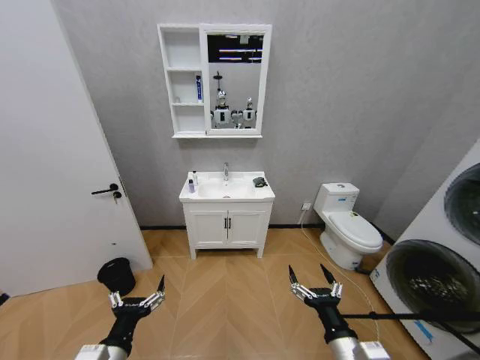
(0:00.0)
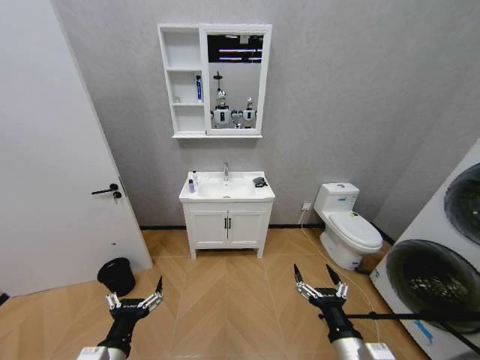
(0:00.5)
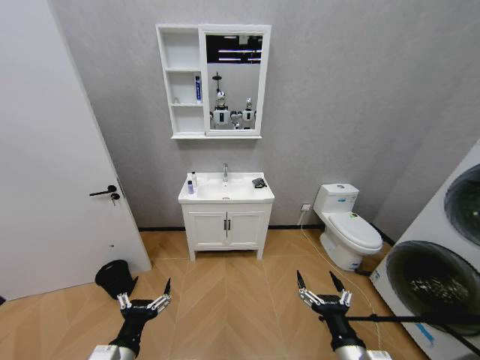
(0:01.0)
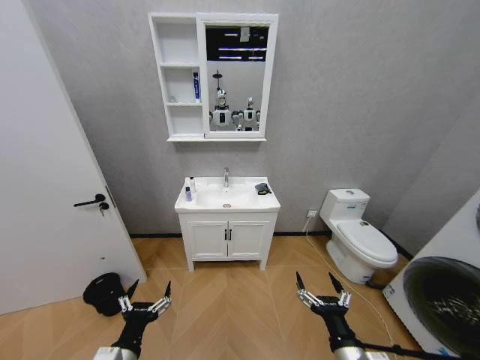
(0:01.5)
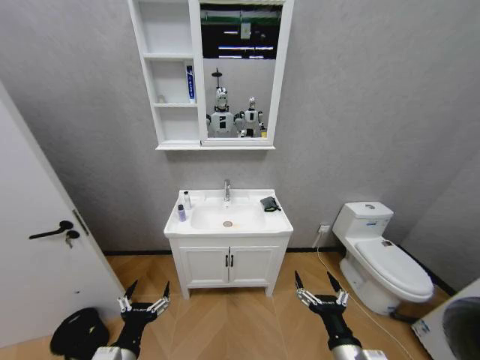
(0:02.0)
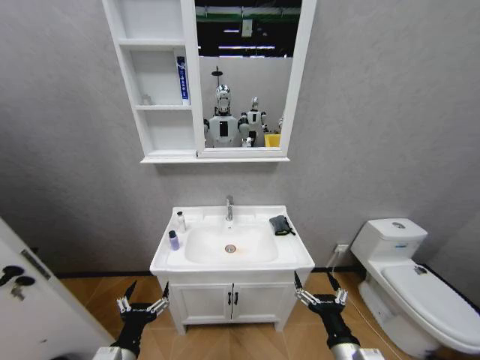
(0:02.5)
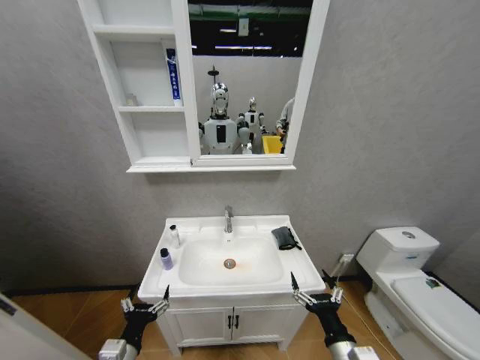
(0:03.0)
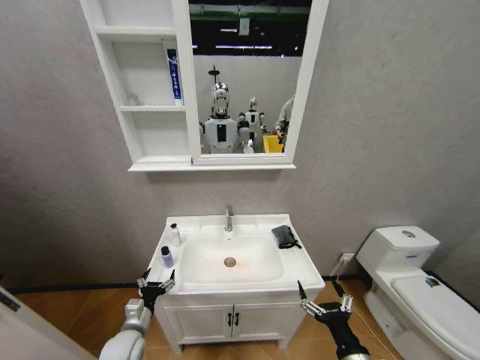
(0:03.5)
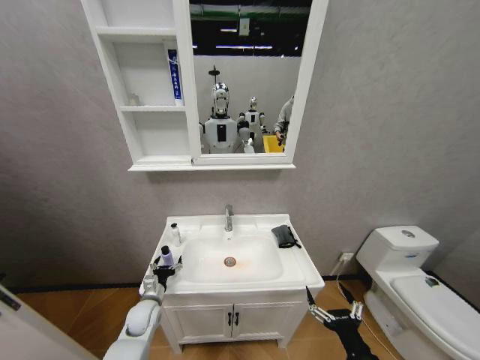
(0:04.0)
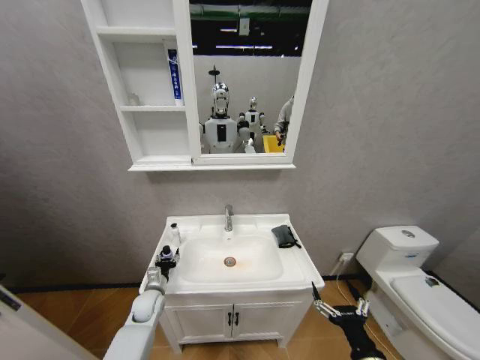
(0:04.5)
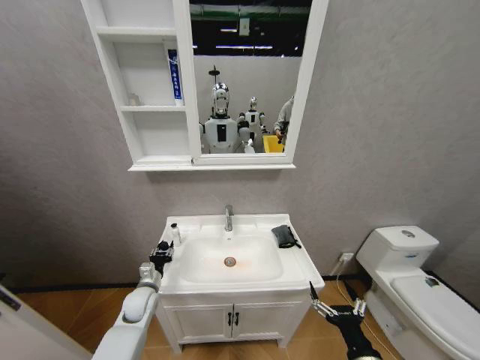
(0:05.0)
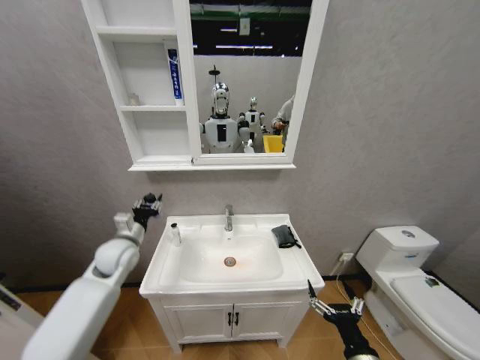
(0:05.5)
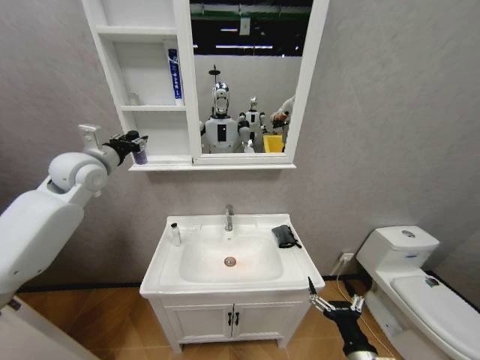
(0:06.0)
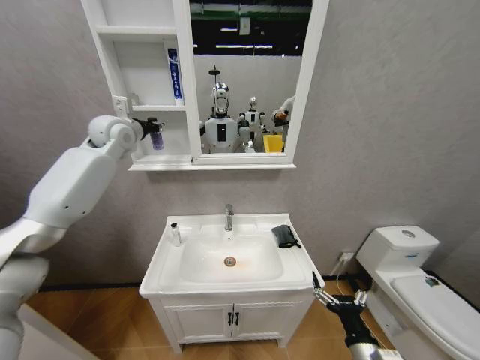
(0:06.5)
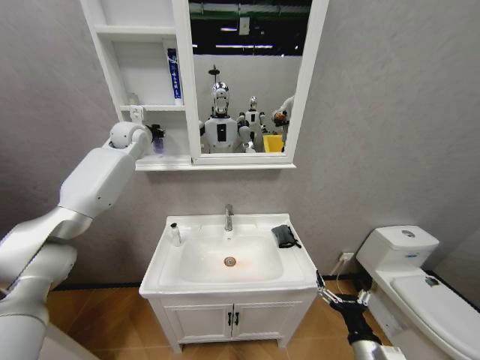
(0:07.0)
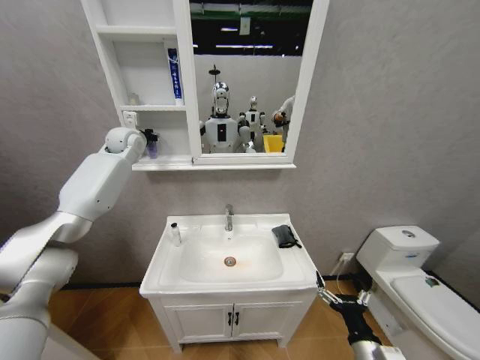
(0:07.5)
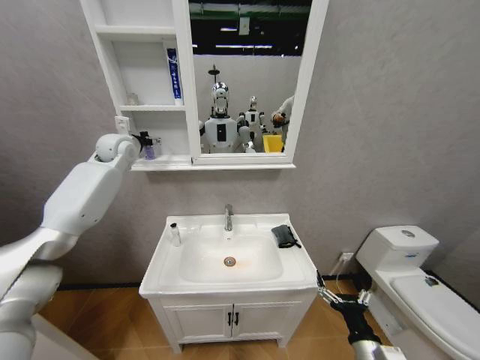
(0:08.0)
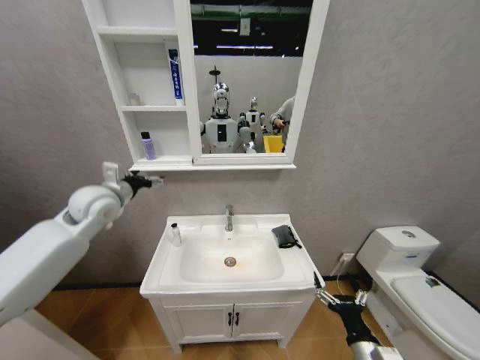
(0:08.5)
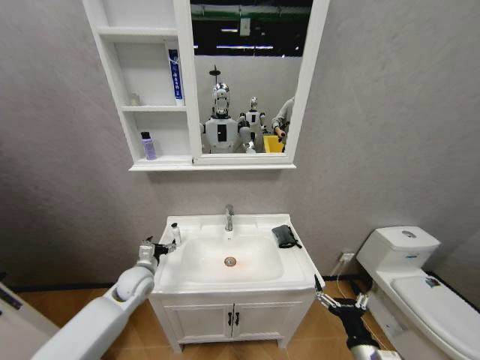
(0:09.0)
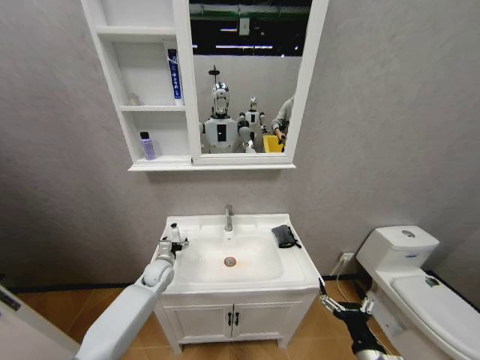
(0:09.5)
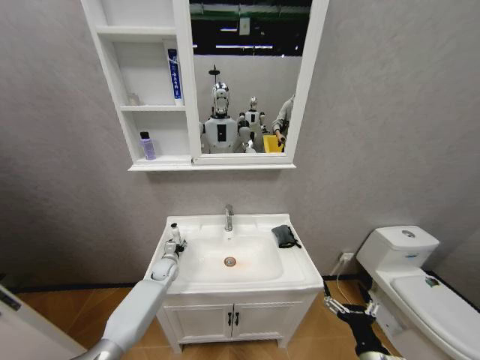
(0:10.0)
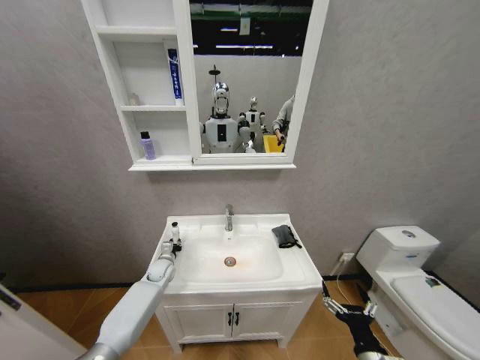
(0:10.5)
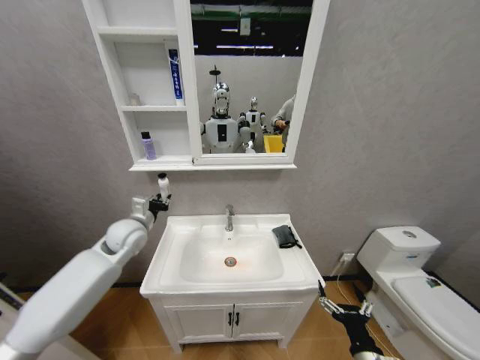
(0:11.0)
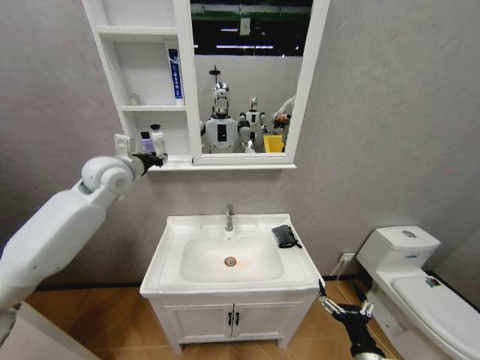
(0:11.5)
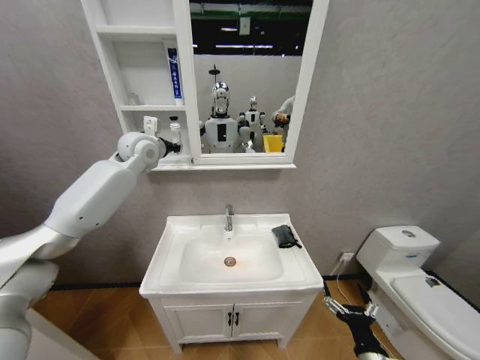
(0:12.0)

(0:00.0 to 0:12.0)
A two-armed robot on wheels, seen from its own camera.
Task of the whole recording: Move facial cleanser and shampoo from washbasin to cabinet, then wipe washbasin with towel.
0:02.0 - 0:04.0: The left gripper travels forward and downward by some 25 cm. Meanwhile the right gripper shifts by about 5 cm.
0:04.0 - 0:06.0: The left gripper goes roughly 40 cm upward, and closes up.
0:06.0 - 0:08.0: The left gripper is displaced forward by approximately 10 cm, and opens.
0:08.0 - 0:10.0: The left gripper heads downward, covering some 40 cm, and closes up.
0:10.0 - 0:12.0: The left gripper travels upward by about 50 cm, and closes its fingers.

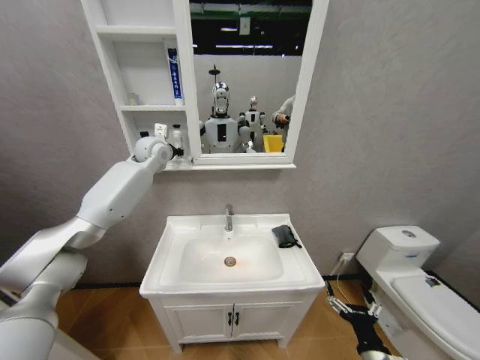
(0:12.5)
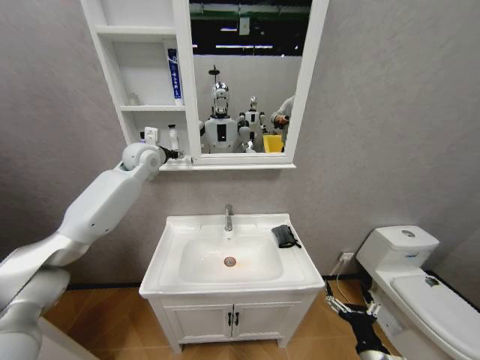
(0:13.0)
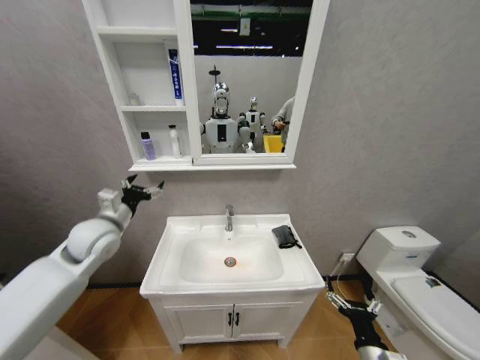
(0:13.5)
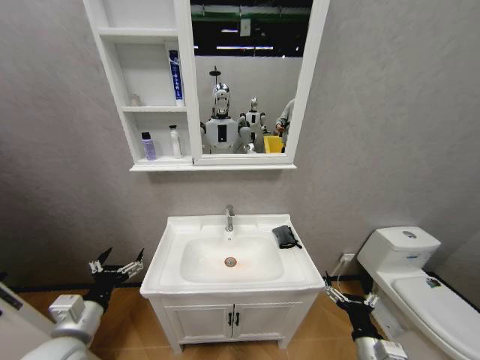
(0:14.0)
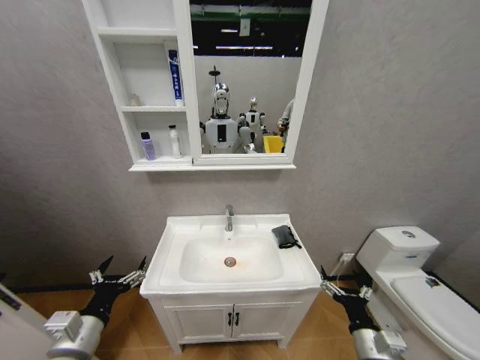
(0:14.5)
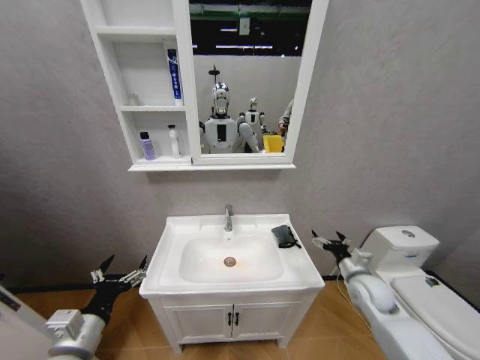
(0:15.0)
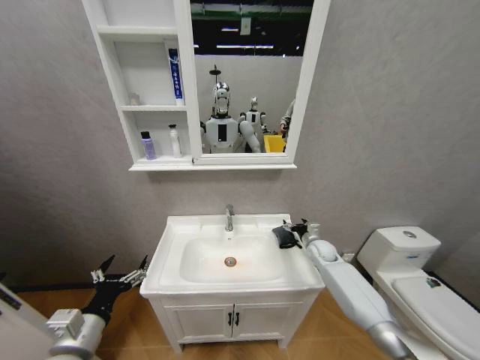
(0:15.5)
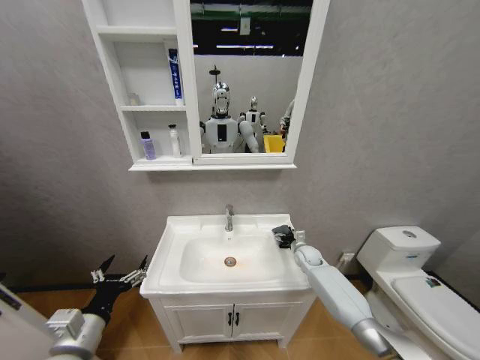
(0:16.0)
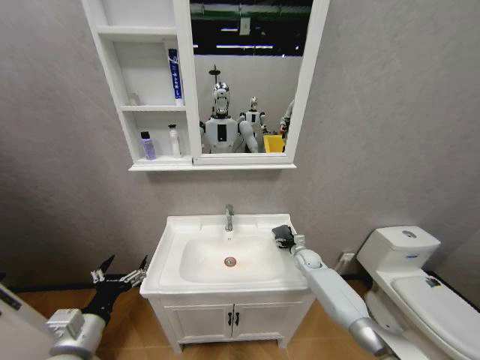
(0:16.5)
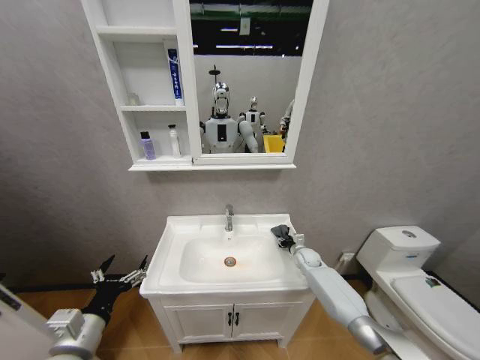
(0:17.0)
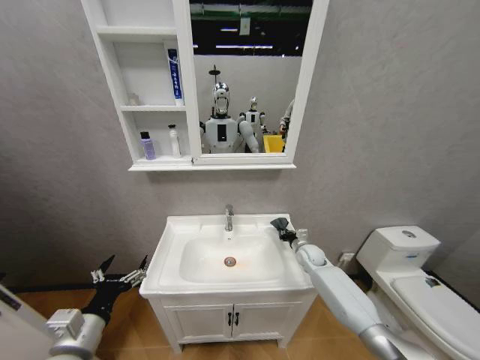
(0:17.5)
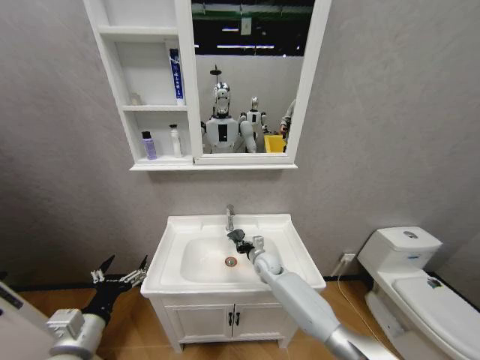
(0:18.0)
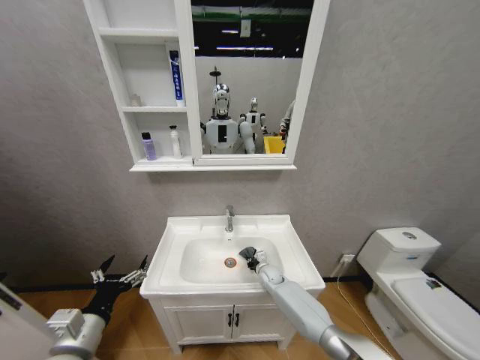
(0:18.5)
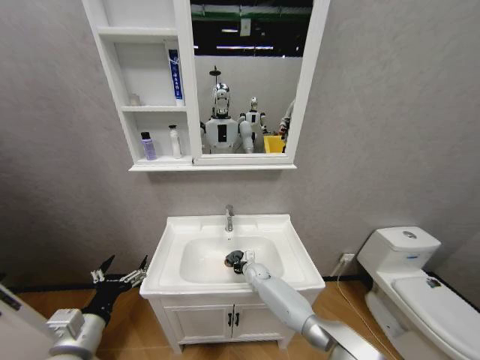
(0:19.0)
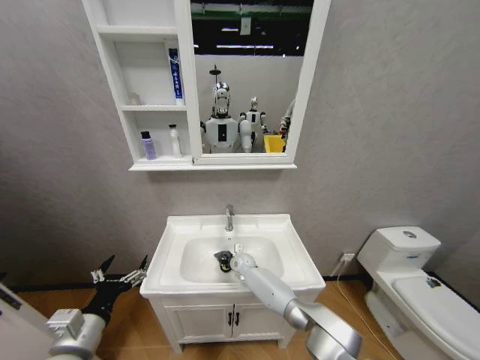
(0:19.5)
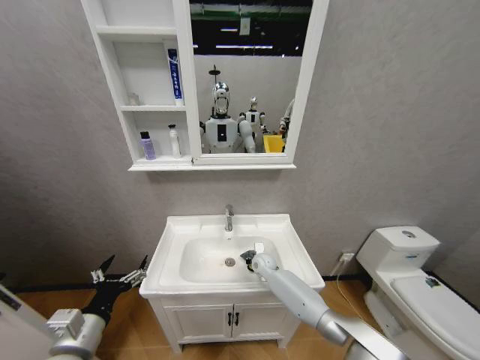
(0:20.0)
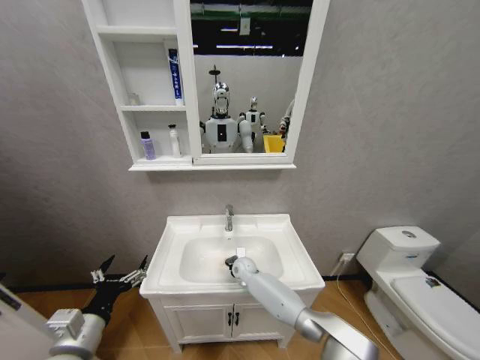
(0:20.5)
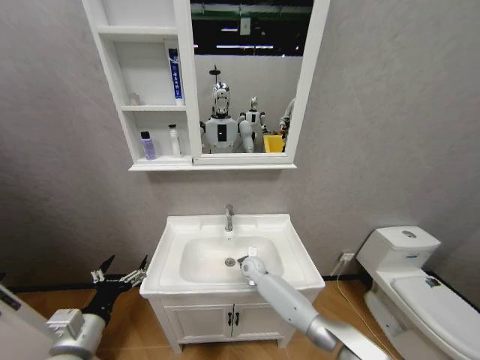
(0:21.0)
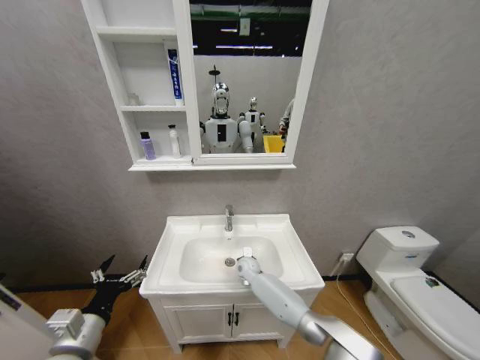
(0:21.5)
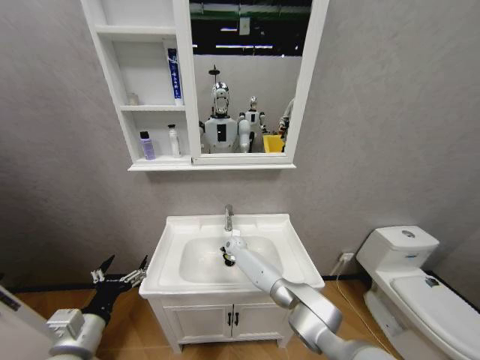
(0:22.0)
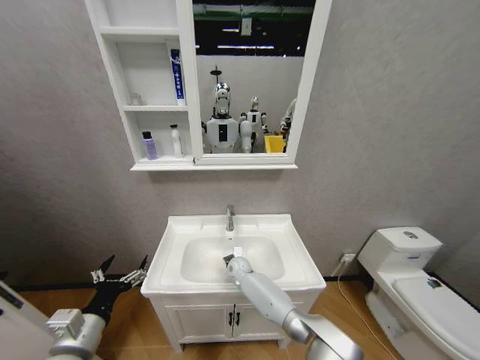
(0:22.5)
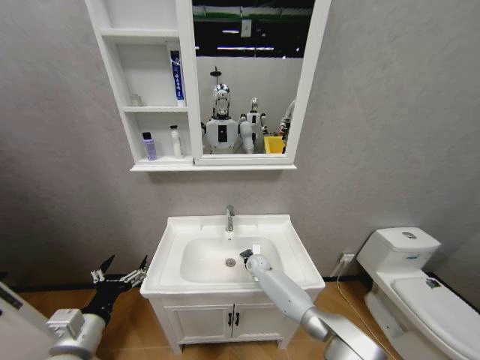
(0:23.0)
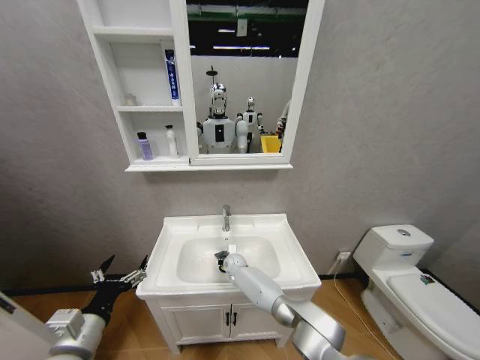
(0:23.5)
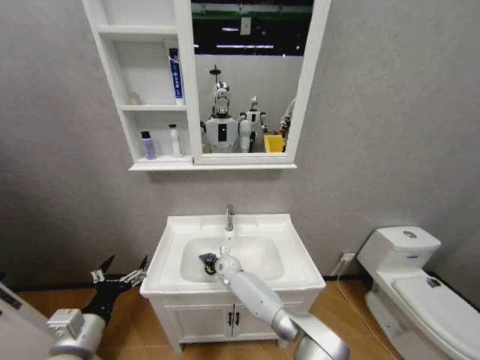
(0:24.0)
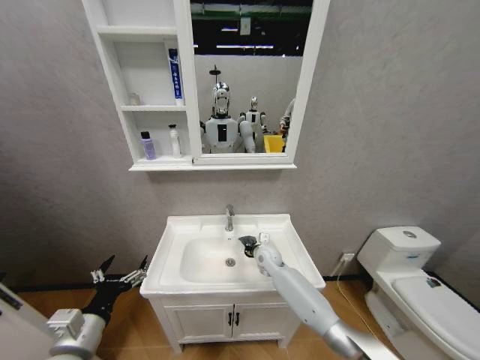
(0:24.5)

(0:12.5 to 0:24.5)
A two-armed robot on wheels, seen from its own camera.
Task of the whole recording: Move facial cleanser and shampoo from washbasin to cabinet, then wipe washbasin with towel.
0:12.5 - 0:14.5: The left gripper shifts roughly 50 cm backward and downward, and opens up.
0:14.5 - 0:16.5: The right gripper heads forward, covering about 35 cm.
0:16.5 - 0:18.5: The right gripper travels to the left by approximately 15 cm, and closes up.
0:18.5 - 0:20.5: The right gripper swings left and right, about 10 cm each way, with 2 reversals.
0:20.5 - 0:22.5: The right gripper reaches roughly 10 cm forward, then returns.
0:22.5 - 0:24.5: The right gripper moves left and right over about 15 cm, changing direction 2 times.

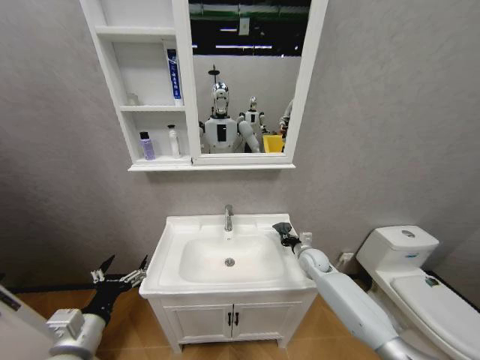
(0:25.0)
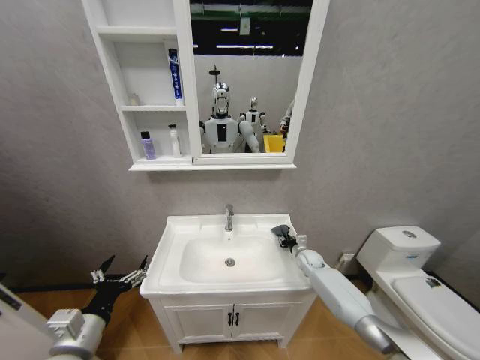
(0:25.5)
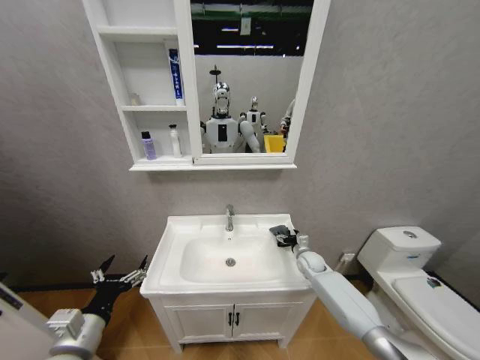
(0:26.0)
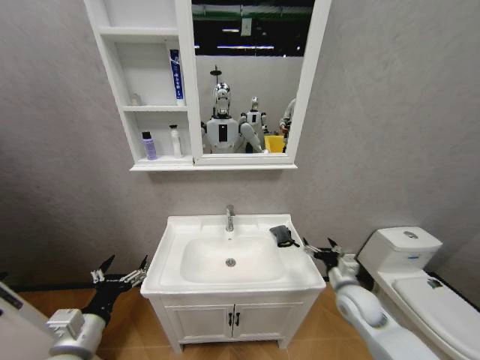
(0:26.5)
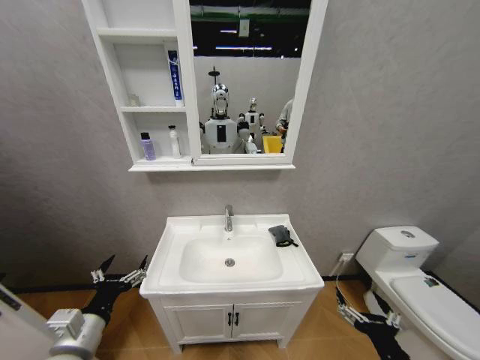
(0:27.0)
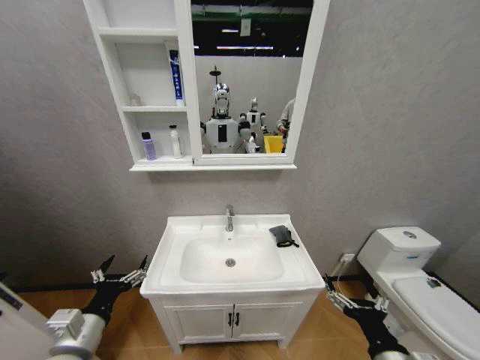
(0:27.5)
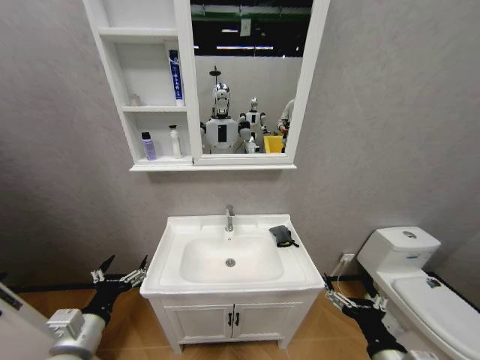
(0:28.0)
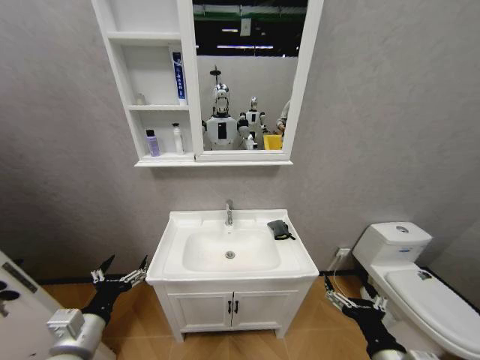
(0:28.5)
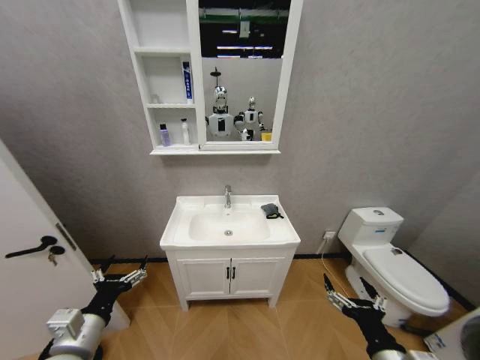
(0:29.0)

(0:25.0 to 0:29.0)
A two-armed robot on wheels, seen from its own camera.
Task of the whole recording: Move facial cleanser and shampoo from washbasin to cabinet, then wipe washbasin with towel.
0:25.0 - 0:27.0: The right gripper moves backward, some 40 cm, and opens.
